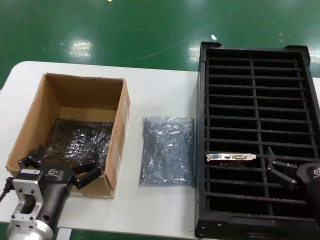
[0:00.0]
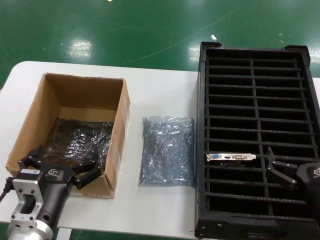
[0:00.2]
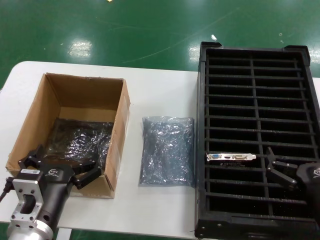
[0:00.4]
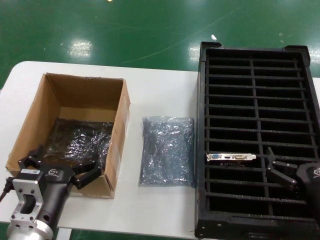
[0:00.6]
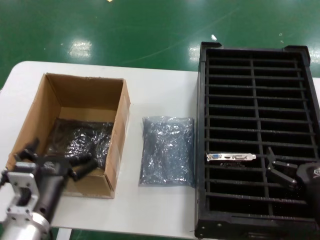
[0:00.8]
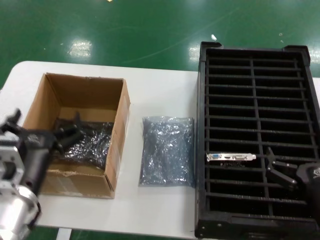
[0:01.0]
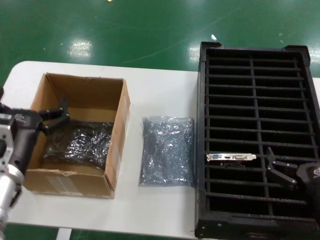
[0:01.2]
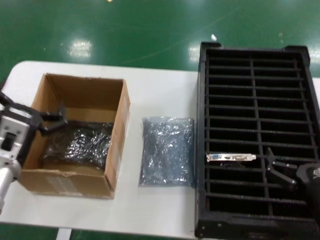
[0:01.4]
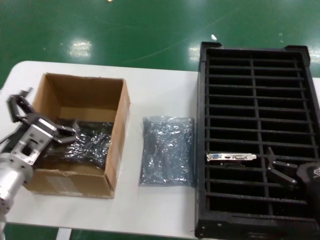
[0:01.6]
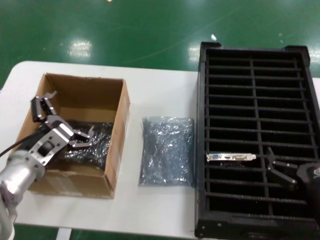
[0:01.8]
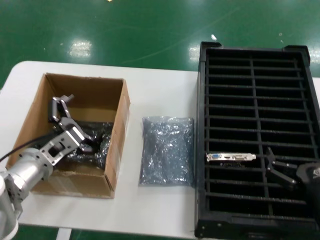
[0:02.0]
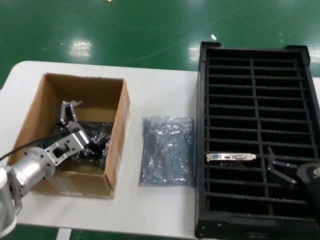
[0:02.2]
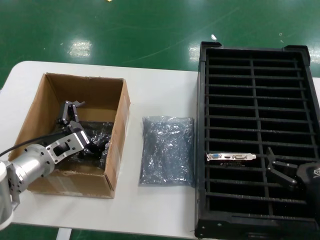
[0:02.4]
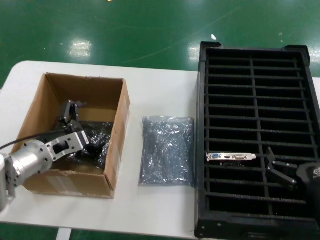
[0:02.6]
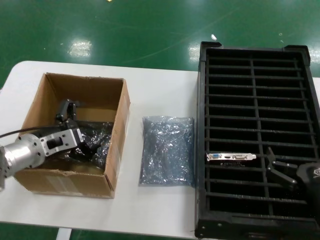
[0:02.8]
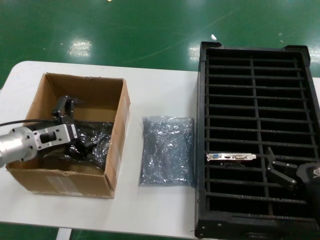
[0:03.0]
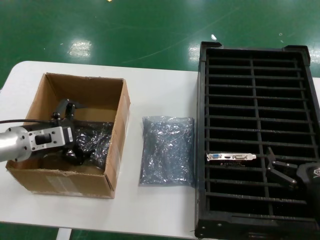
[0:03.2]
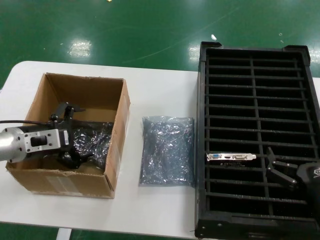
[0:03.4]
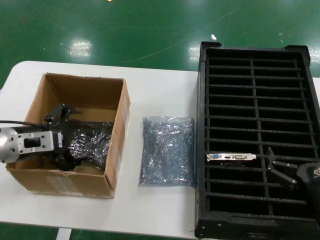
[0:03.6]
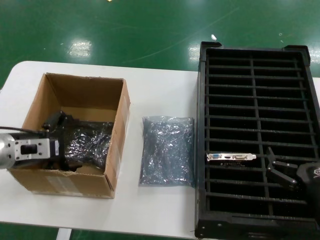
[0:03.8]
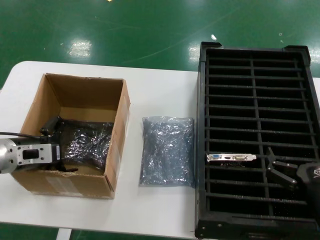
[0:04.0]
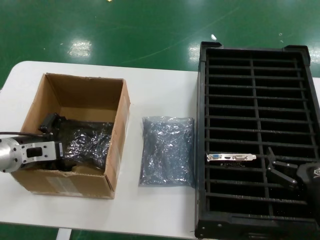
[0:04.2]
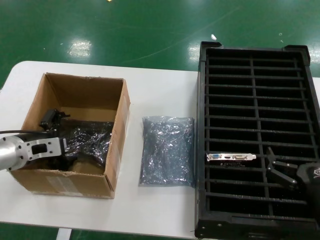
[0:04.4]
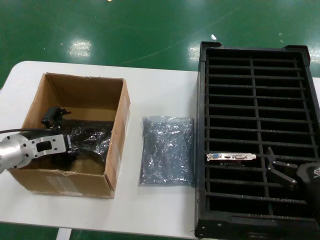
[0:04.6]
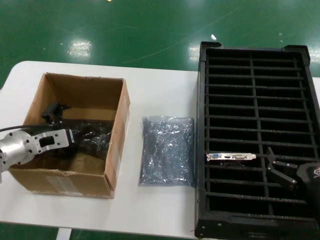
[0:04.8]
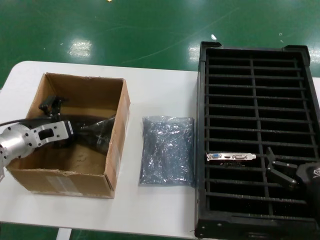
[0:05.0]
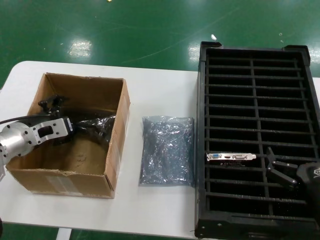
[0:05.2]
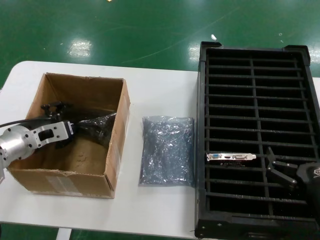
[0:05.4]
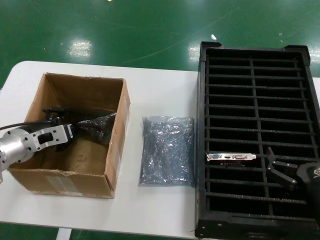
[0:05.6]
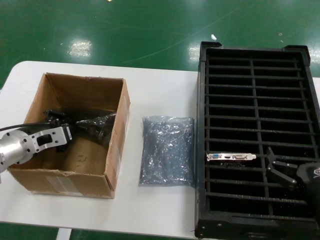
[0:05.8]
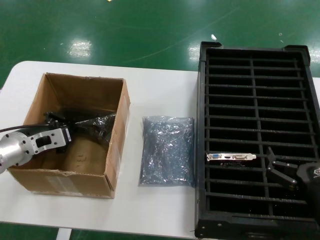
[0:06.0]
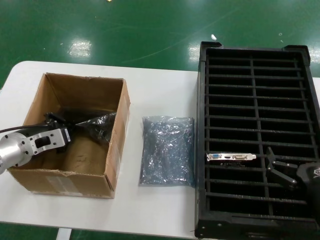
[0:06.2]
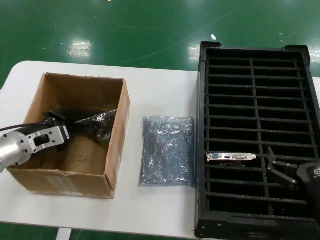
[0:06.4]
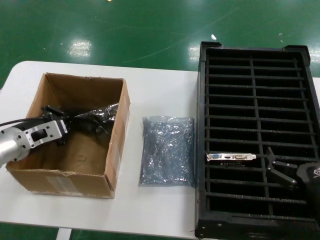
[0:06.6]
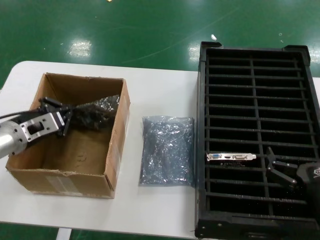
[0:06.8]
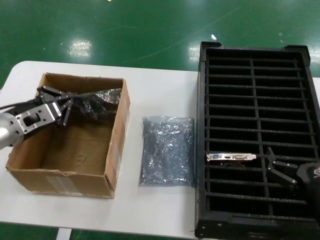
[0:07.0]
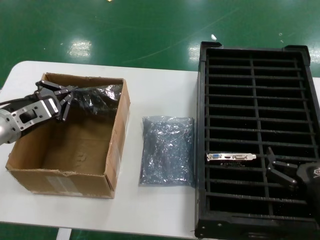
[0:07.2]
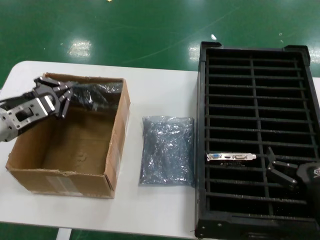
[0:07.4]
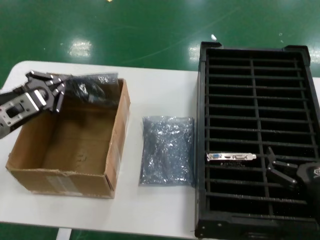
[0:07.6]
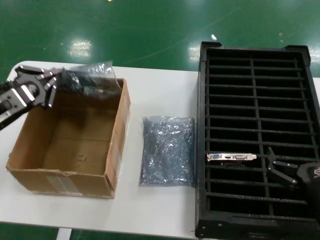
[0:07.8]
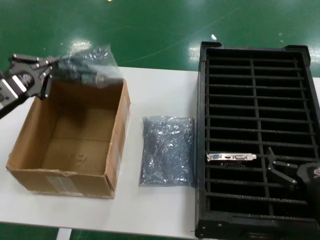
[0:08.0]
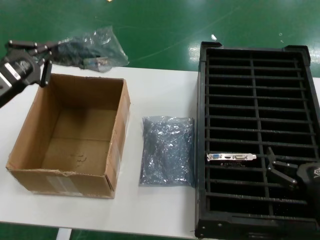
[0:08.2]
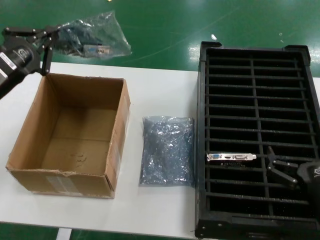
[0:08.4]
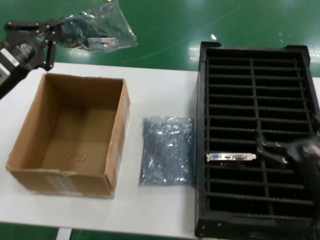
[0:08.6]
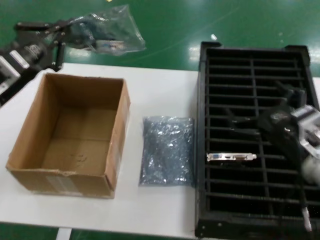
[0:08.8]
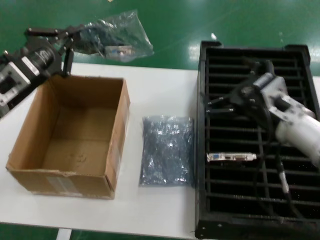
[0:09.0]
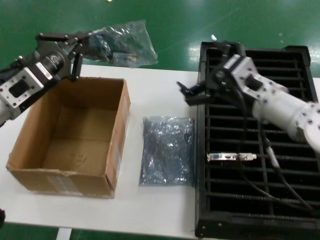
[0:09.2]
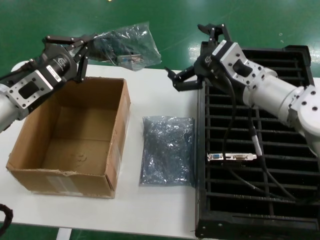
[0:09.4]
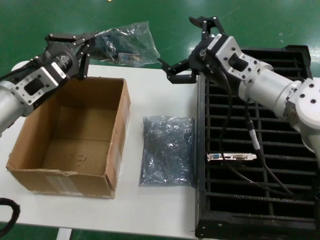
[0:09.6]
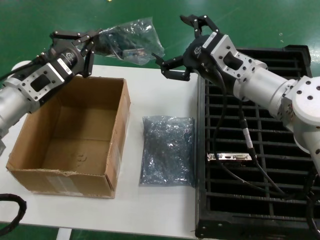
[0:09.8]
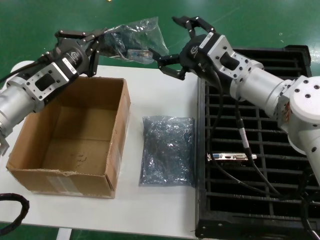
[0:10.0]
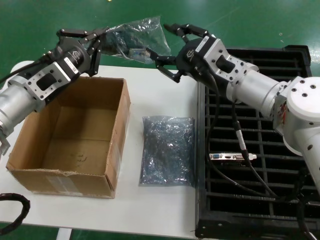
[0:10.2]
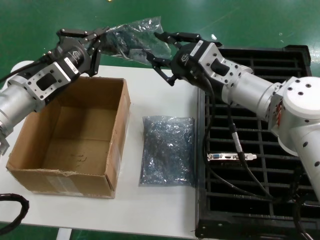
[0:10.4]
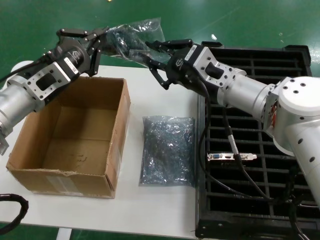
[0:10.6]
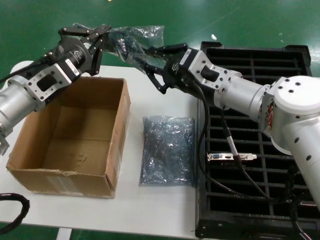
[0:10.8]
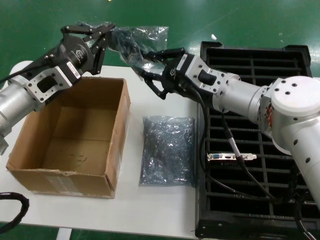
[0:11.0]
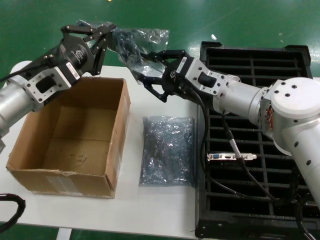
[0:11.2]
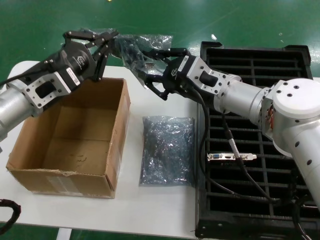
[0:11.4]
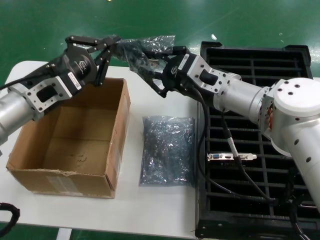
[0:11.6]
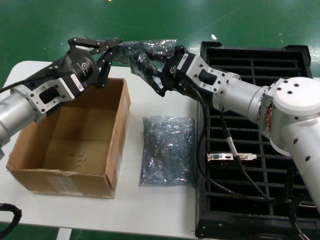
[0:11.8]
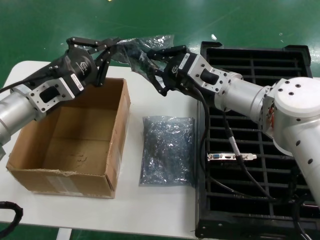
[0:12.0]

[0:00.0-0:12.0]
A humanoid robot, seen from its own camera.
Task of the whole recording: take out graphics card from box remove packaging put into black container.
Step, 0:00.0 to 0:06.2: Grasp the bag.
Step, 0:06.4 to 0:08.4: Lift the bag.
0:00.0 to 0:01.6: The left hand is displaced forward, to the left and upward by approximately 15 cm.
0:01.6 to 0:03.0: The left hand moves forward and to the left, about 10 cm.
0:03.0 to 0:06.0: The hands move only a little.
0:06.0 to 0:07.6: The left hand is displaced upward by approximately 5 cm.
0:07.6 to 0:09.0: The right hand shifts approximately 20 cm forward and upward. Meanwhile the left hand is displaced upward by some 5 cm.
0:09.0 to 0:10.4: The right hand shifts some 15 cm to the left, forward and upward. Meanwhile the left hand moves about 5 cm.
0:10.4 to 0:12.0: The hands make only small movements.

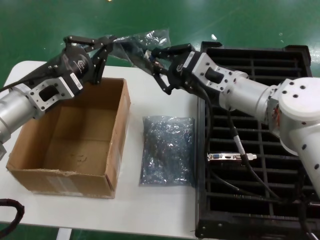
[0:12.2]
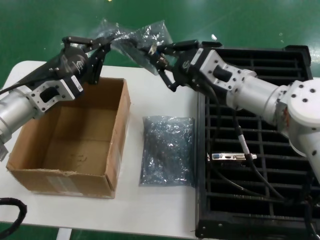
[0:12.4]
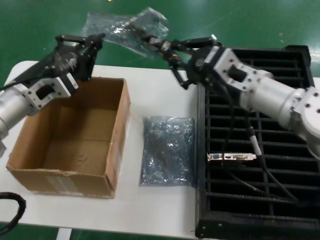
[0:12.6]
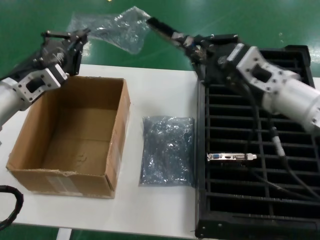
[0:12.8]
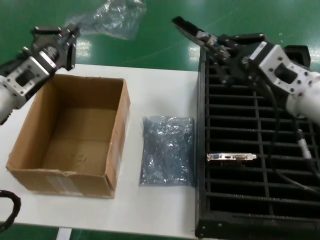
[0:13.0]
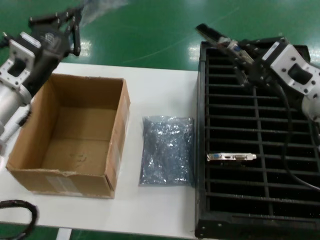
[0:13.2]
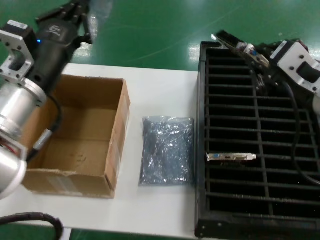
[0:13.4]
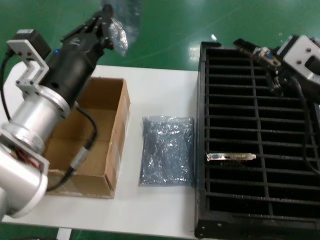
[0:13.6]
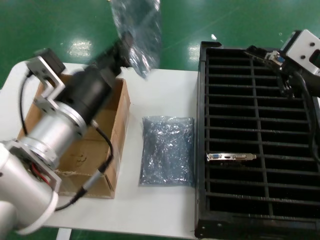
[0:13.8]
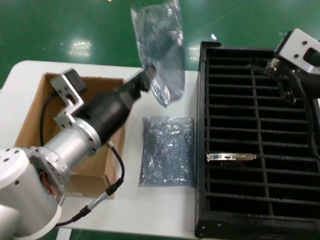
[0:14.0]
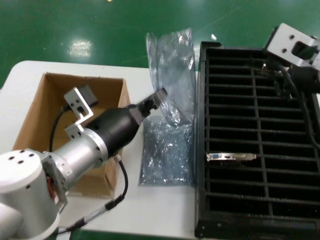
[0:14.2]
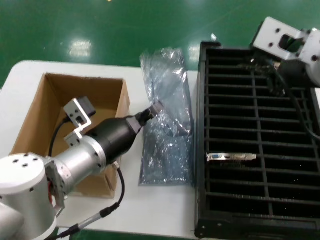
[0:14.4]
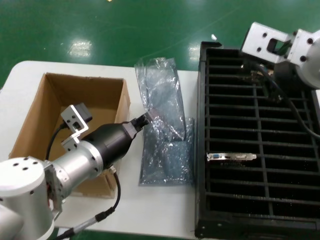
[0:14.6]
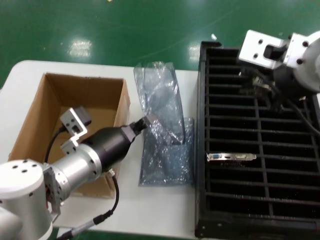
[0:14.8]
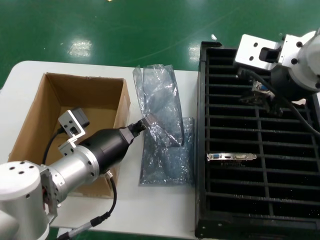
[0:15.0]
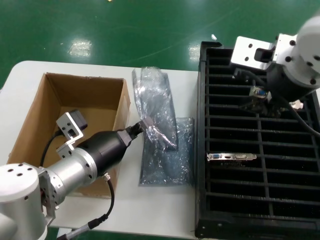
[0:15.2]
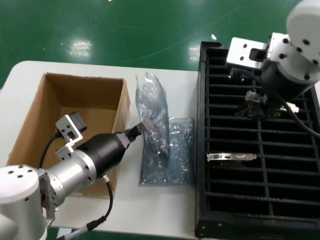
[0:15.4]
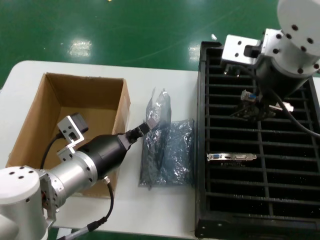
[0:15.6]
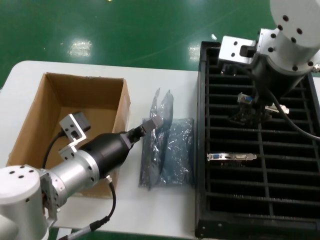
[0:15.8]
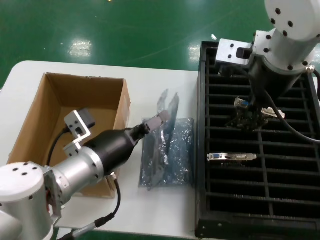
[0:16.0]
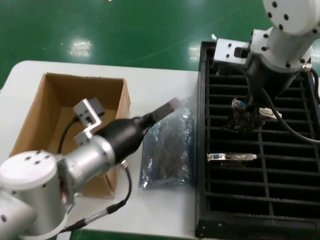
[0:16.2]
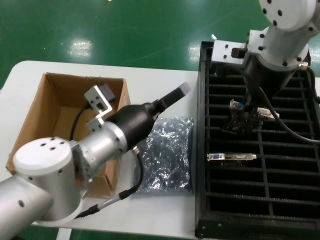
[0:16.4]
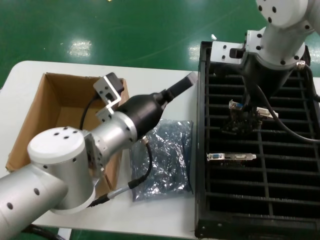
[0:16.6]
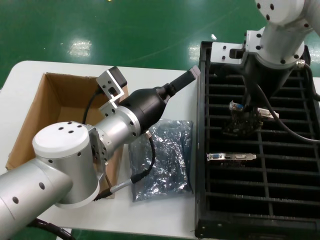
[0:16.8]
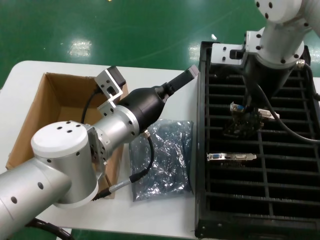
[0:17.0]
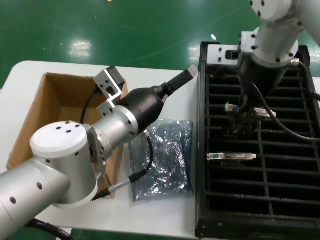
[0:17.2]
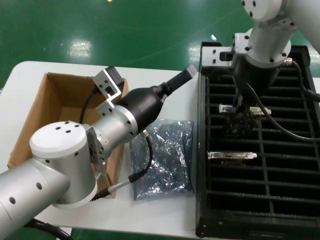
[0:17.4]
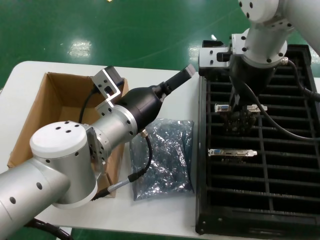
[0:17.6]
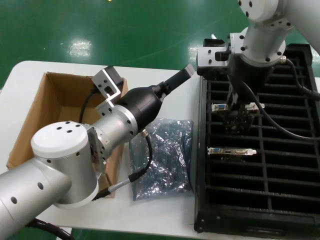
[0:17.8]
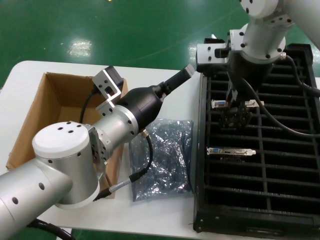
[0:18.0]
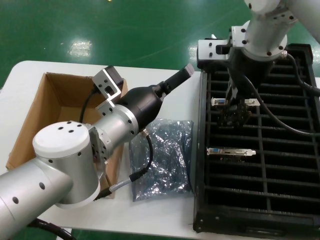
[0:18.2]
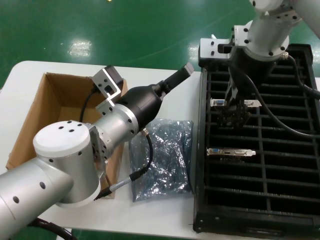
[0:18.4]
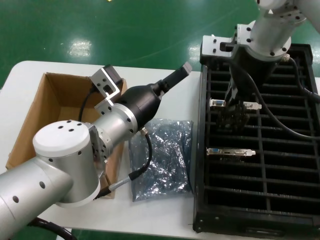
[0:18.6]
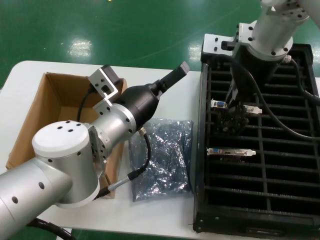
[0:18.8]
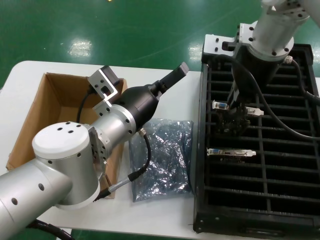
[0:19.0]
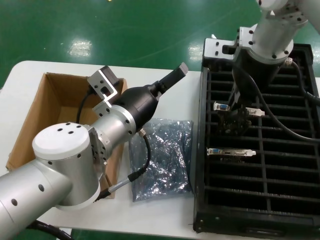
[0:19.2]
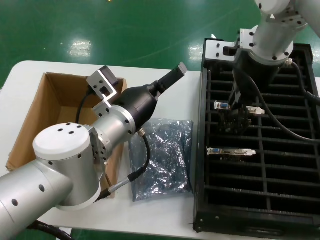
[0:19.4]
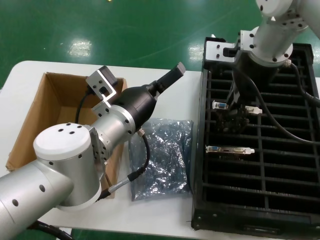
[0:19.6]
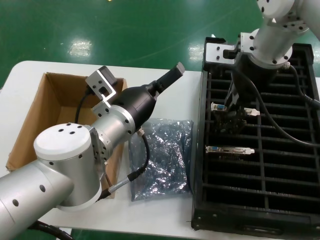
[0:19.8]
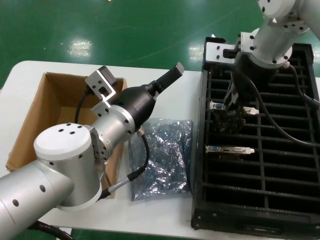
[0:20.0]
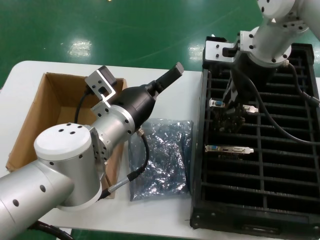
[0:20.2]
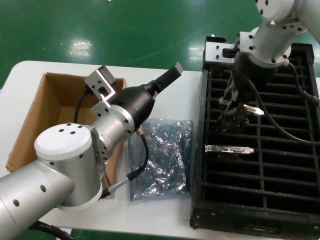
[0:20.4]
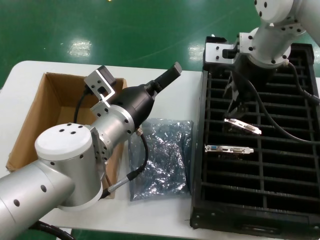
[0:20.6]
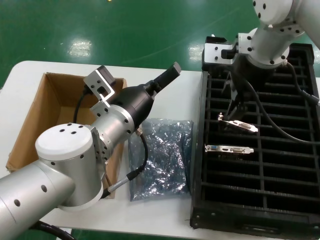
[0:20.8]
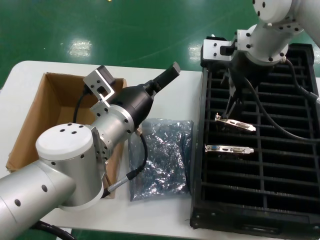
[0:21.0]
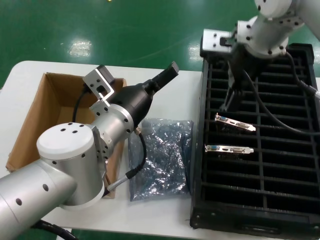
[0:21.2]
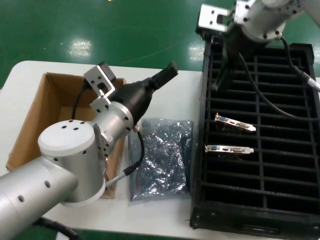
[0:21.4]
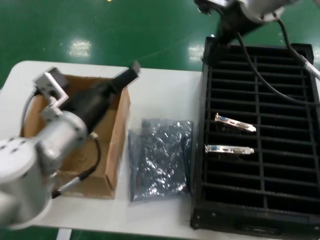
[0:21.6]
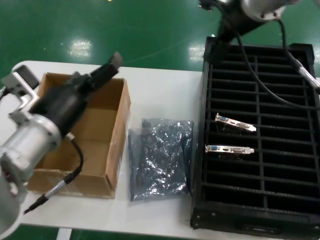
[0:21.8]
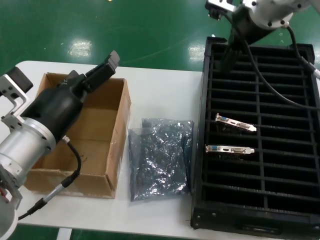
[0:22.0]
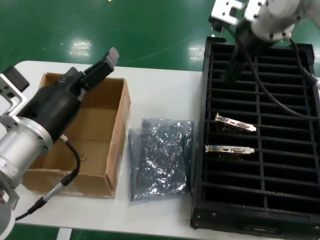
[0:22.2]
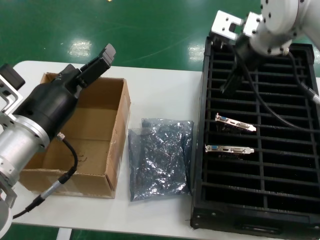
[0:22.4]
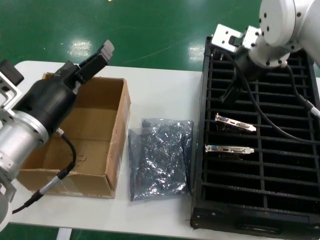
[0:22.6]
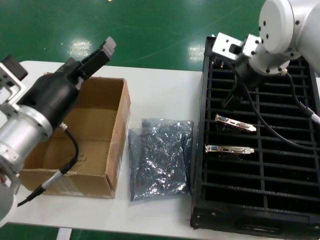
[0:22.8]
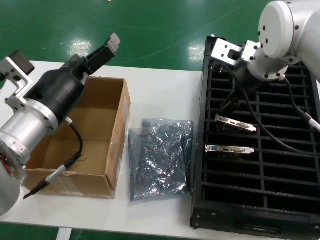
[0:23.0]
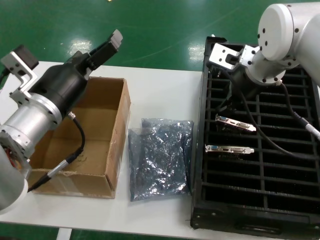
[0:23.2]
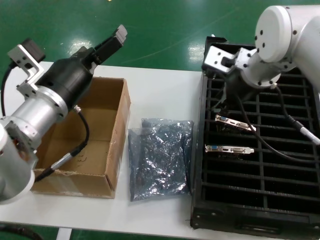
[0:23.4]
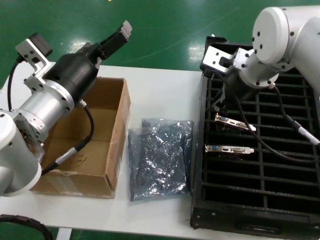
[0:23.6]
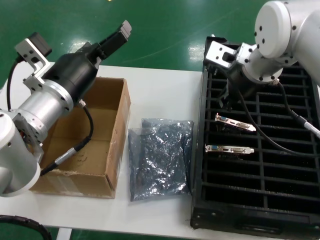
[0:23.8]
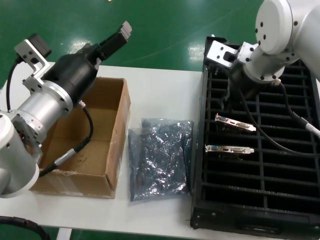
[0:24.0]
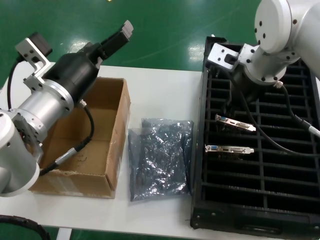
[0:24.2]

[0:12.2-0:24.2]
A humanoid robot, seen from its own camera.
Task of the whole recording: take out graphics card from box remove packaging put into black container.
Step, 0:13.2 to 0:17.0: Place the down the bag.
0:12.2 to 0:13.8: The right hand shifts approximately 20 cm backward, upward and to the right; the left hand travels to the right and backward by roughly 10 cm.
0:13.8 to 0:15.2: The left hand moves downward, approximately 10 cm. Meanwhile the right hand heads to the left and upward, covering approximately 10 cm.
0:15.2 to 0:16.6: The left hand is displaced to the right by roughly 5 cm, while the right hand is displaced forward by roughly 10 cm.
0:18.2 to 0:21.2: The hands stay close to where they were, moving slightly.
0:21.2 to 0:22.6: The left hand goes about 15 cm to the left and backward.
0:22.6 to 0:24.2: The left hand shifts some 5 cm forward.
